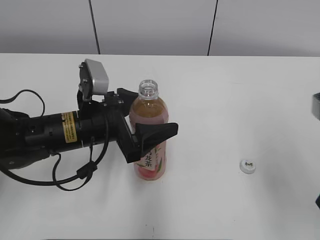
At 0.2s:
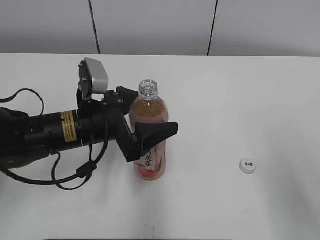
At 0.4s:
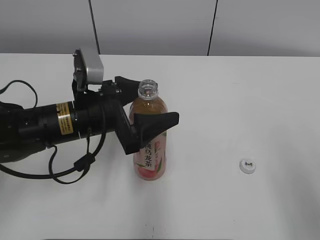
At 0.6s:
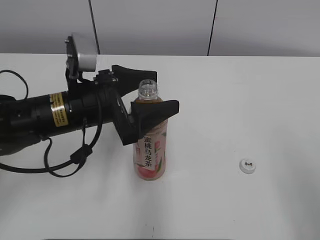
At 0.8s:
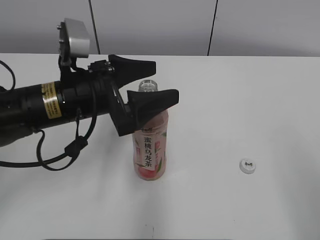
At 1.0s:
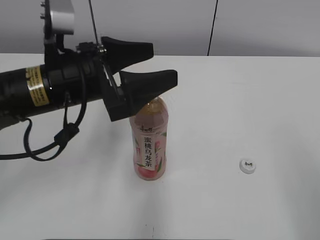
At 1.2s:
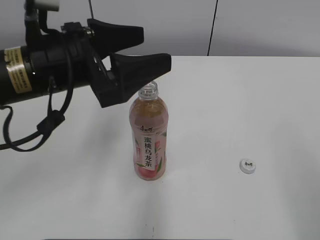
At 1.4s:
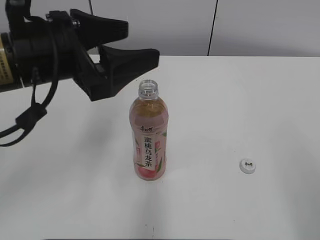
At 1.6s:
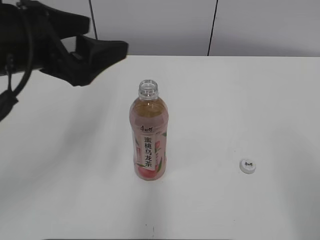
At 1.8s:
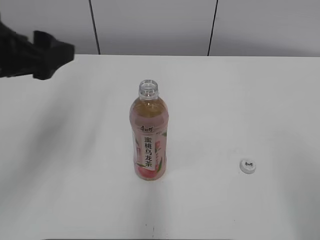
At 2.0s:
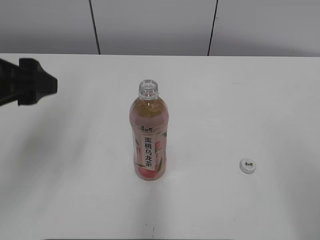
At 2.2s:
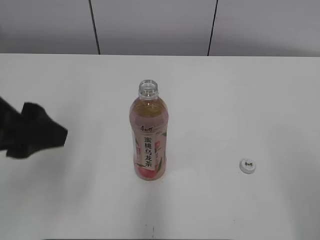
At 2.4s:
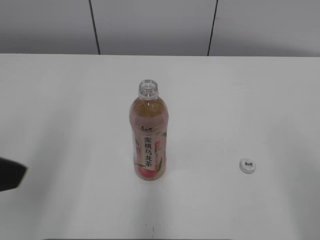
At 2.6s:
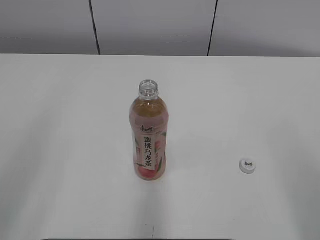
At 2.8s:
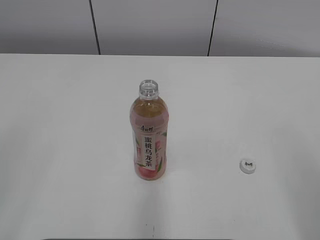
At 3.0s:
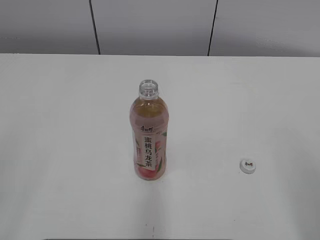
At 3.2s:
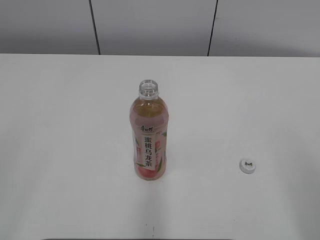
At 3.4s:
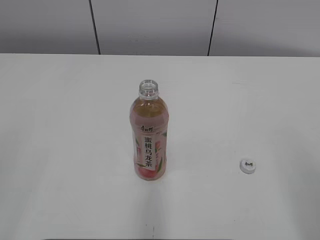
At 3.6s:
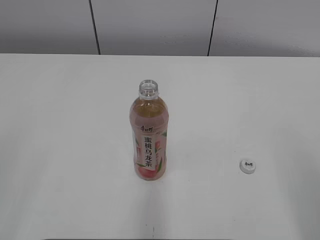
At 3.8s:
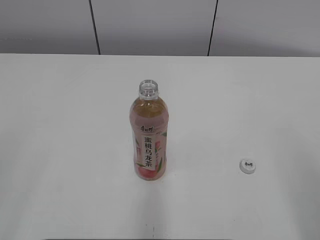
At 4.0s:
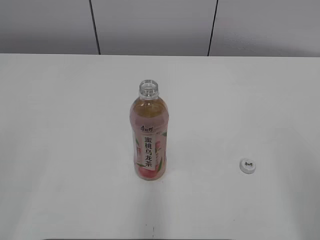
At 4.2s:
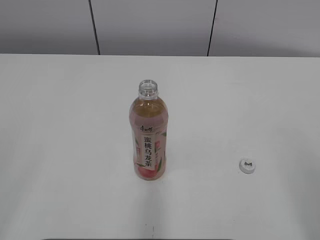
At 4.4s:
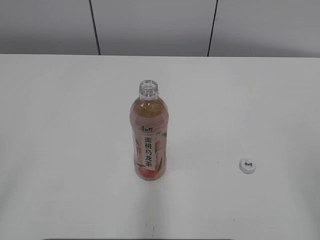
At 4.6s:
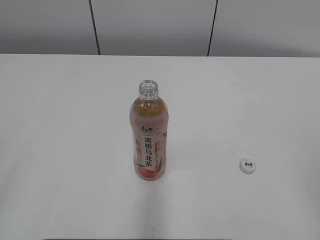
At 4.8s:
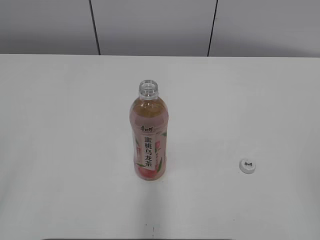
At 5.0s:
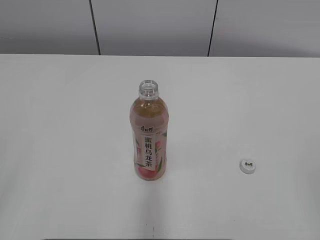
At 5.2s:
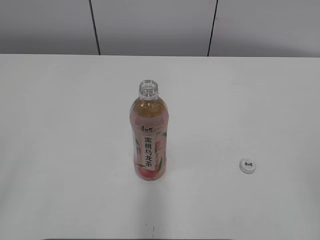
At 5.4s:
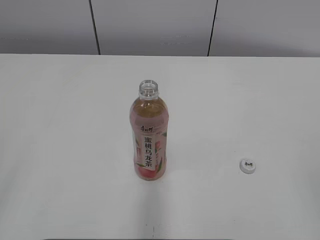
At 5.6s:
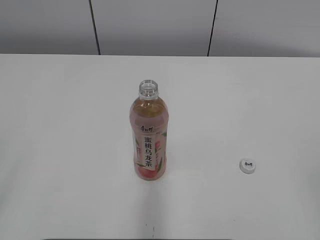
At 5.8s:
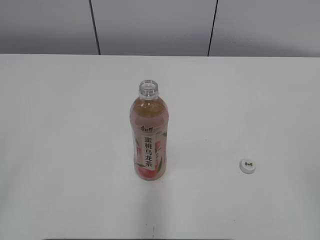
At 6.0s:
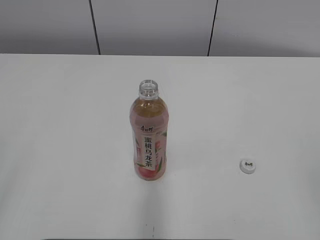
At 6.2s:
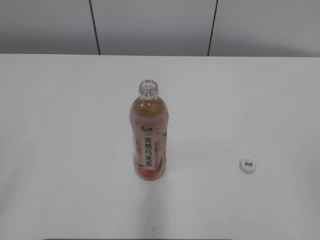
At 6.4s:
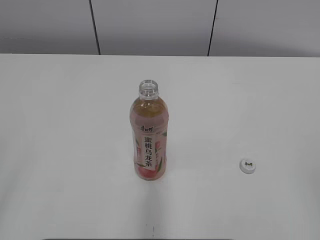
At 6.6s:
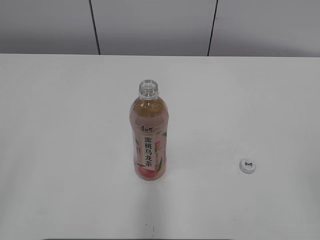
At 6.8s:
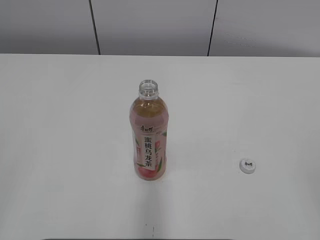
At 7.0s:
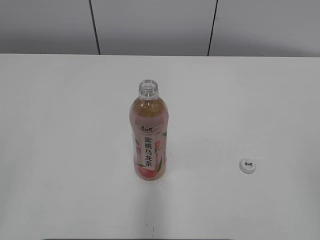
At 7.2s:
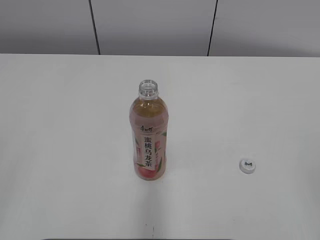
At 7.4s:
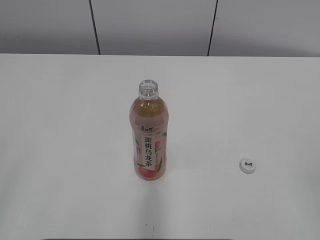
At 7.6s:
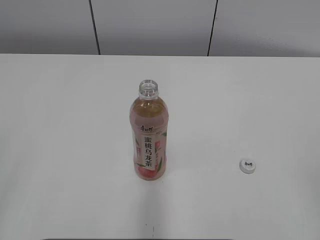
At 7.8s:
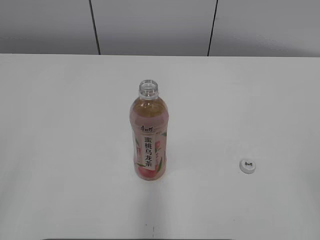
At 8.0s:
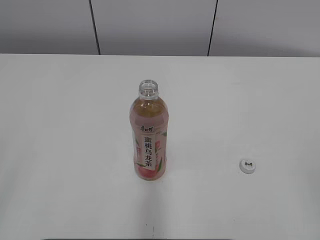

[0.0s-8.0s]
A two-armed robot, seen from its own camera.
0.0s to 1.6s: The right gripper travels backward and to the right by approximately 15 cm. The left gripper shifts approximately 15 cm upward.
1.6s to 3.2s: The left gripper heads backward and to the left, covering about 25 cm.
4.8s to 6.4s: Neither gripper changes place.

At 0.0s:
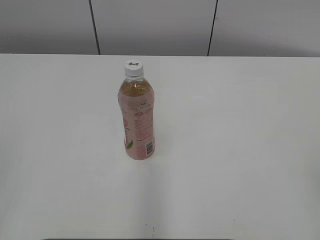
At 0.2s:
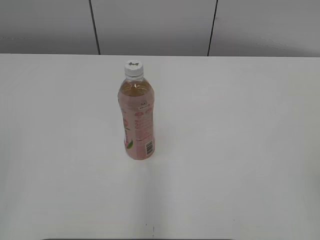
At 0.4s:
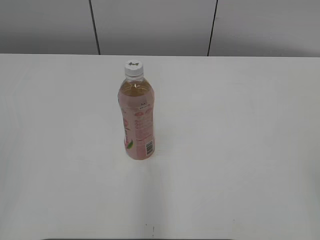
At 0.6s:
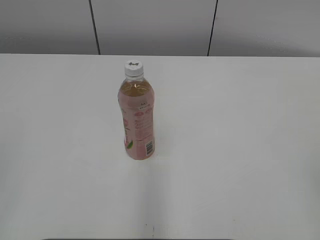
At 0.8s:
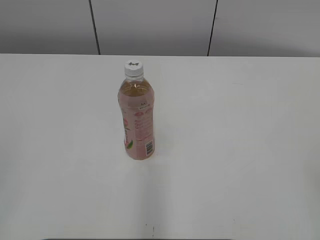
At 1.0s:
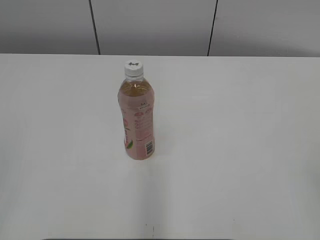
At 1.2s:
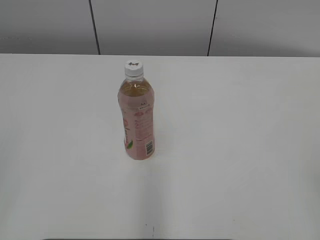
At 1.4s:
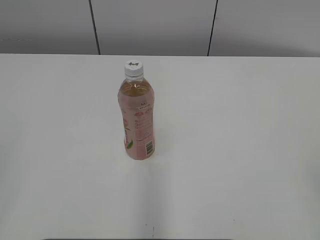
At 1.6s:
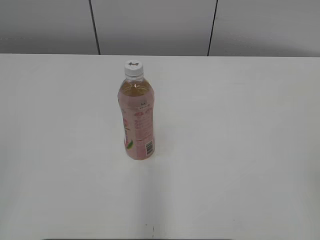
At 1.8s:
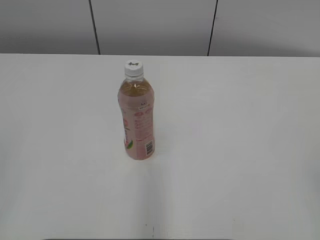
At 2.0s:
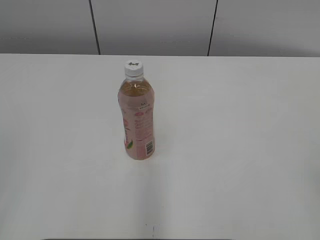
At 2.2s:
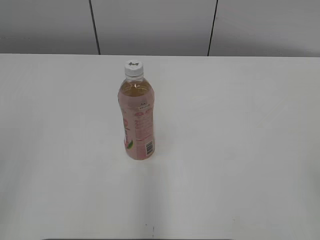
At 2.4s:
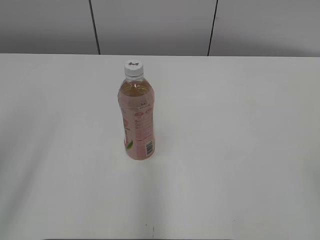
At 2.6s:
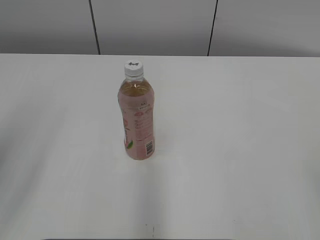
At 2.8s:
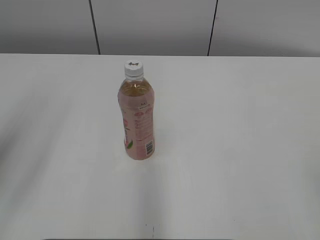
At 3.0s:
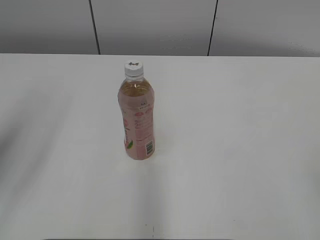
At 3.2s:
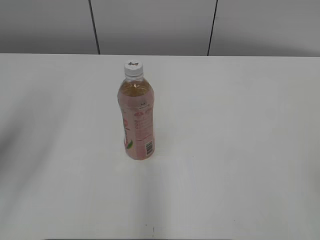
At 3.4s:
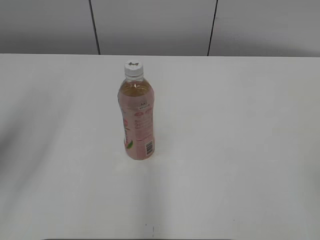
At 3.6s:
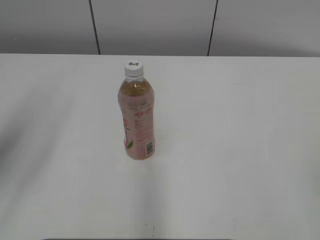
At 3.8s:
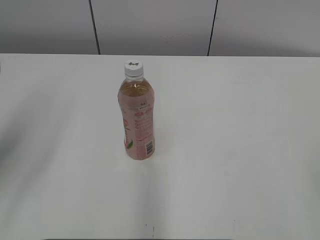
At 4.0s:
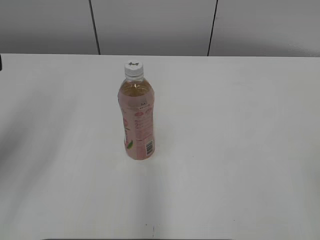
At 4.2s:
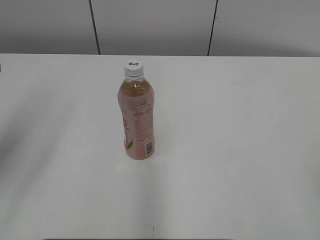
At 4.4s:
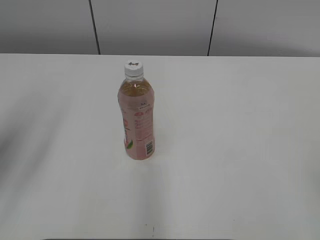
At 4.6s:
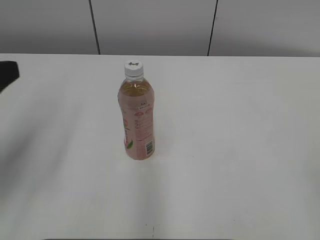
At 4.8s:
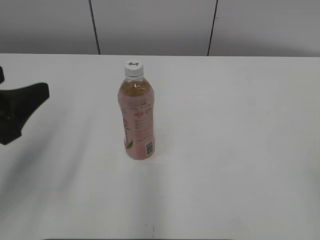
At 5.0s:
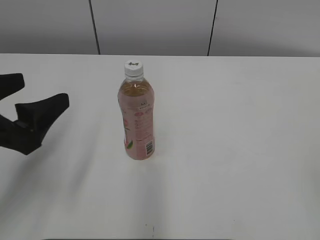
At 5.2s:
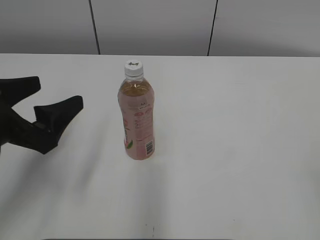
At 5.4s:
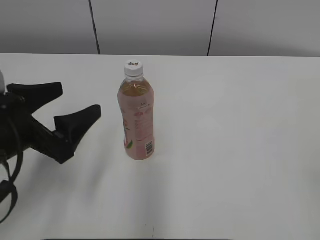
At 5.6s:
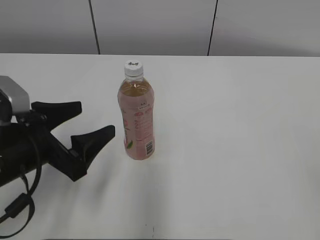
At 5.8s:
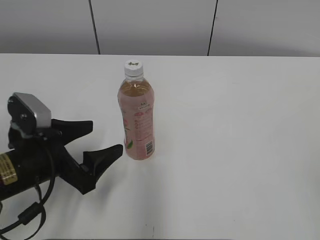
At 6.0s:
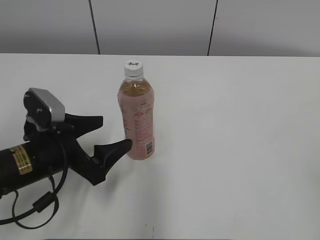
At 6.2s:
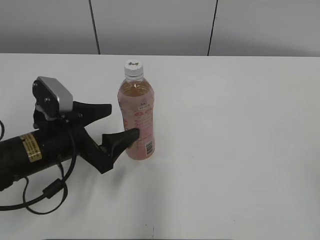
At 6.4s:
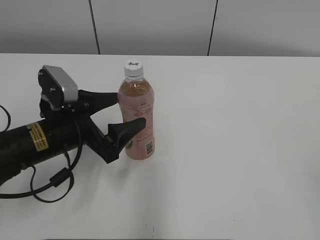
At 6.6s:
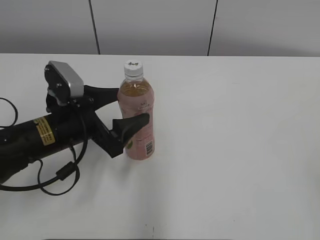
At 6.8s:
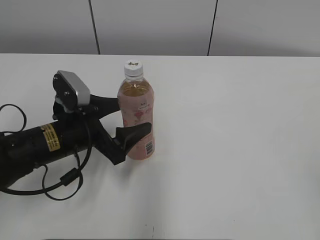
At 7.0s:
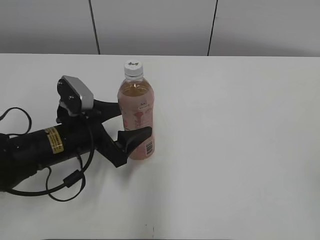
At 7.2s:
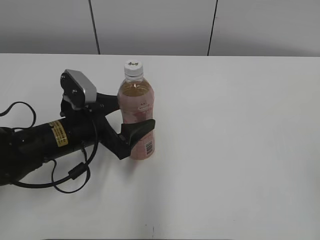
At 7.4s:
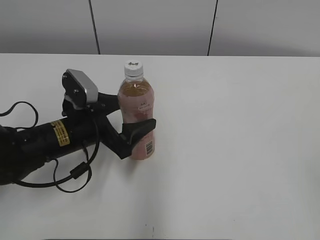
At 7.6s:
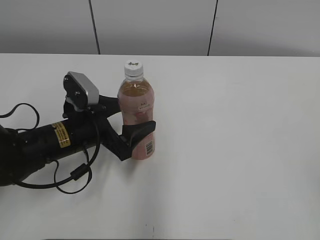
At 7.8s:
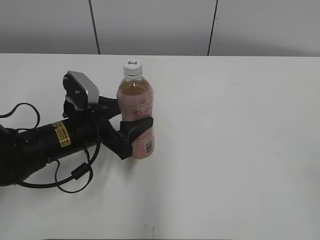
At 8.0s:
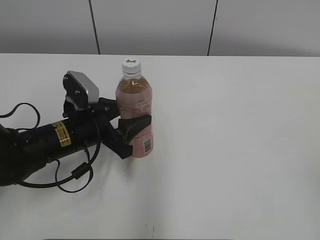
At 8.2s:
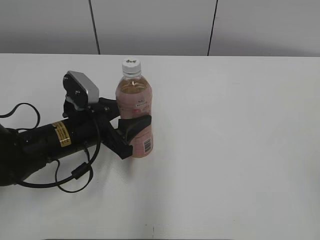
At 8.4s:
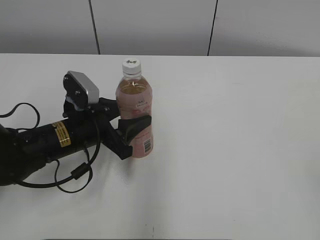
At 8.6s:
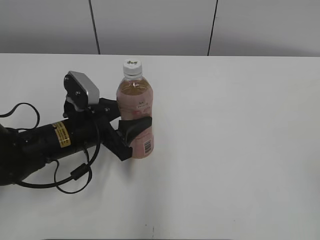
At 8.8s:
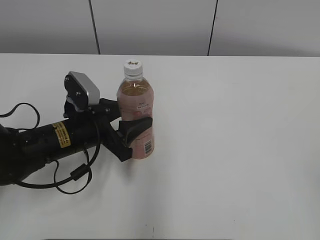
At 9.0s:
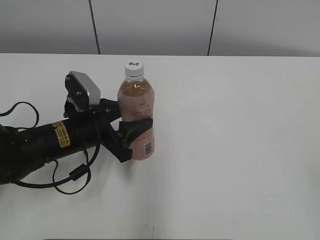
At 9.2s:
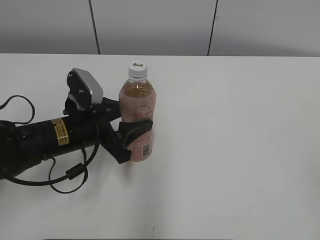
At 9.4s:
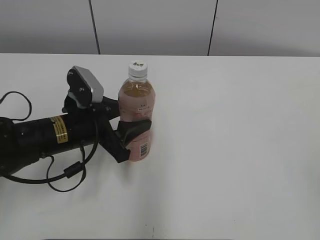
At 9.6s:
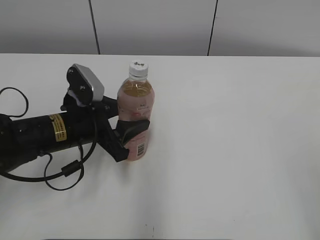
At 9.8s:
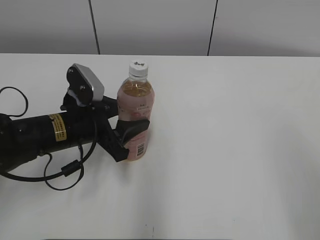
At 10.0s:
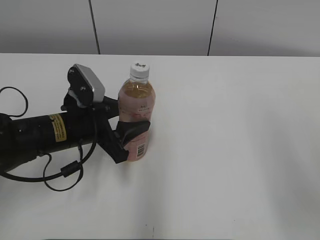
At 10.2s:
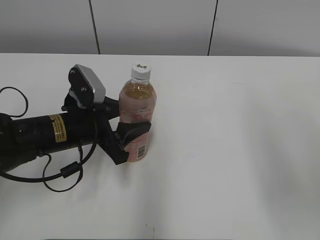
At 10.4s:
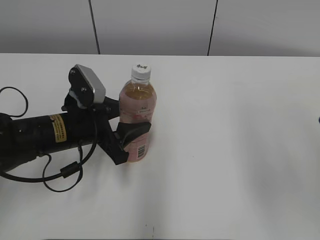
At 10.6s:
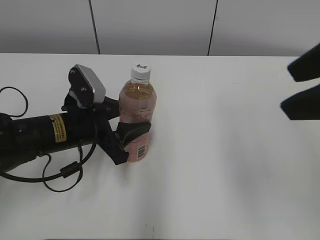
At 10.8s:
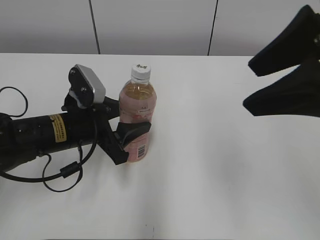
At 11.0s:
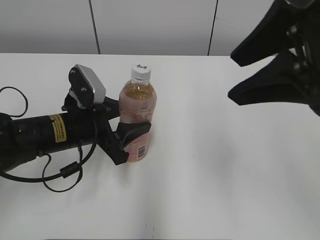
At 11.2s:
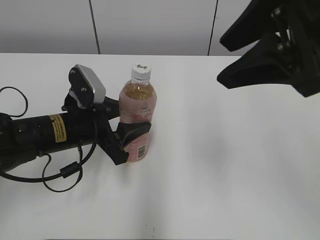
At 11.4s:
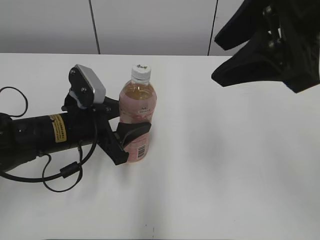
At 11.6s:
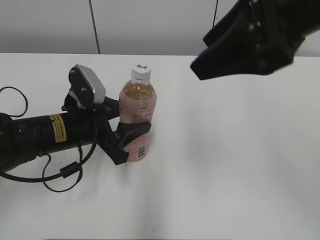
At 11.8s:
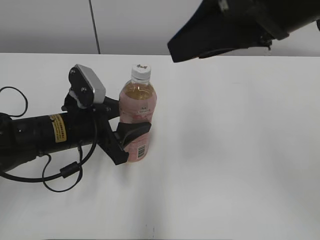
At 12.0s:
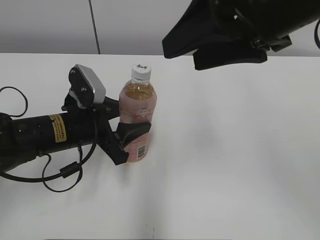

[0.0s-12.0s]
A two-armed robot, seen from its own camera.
Step, 0.0s to 8.2s: Grab the Peach Oolong Tea with the left hand.
1.6s to 3.0s: The left gripper heads forward, covering some 15 cm, and opens.
4.4s to 6.0s: The left gripper goes approximately 20 cm downward and to the right.
6.0s to 7.6s: The left gripper travels forward by some 5 cm.
7.6s to 9.0s: The left gripper closes its fingers.
9.0s to 10.4s: The right gripper heads forward, to the left and upward, covering some 20 cm.
10.4s to 12.0s: The right gripper is displaced to the left and forward by some 15 cm.

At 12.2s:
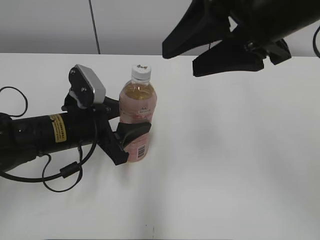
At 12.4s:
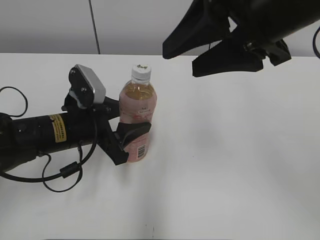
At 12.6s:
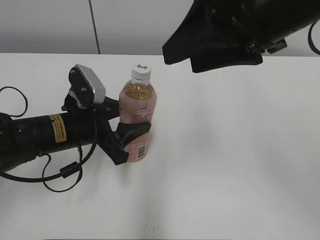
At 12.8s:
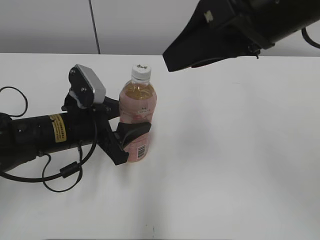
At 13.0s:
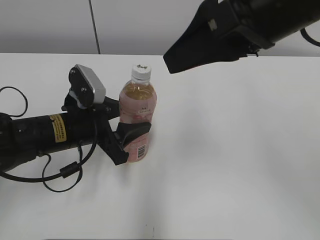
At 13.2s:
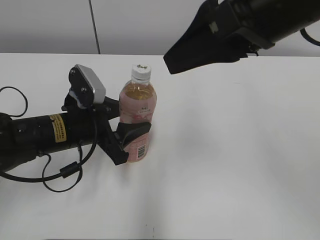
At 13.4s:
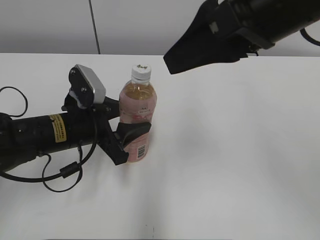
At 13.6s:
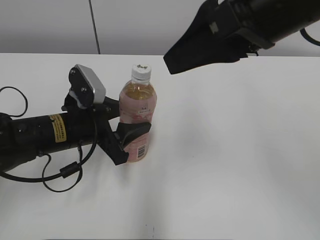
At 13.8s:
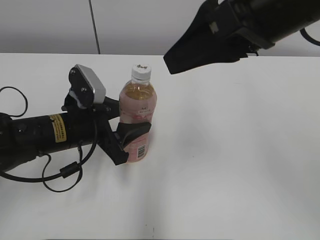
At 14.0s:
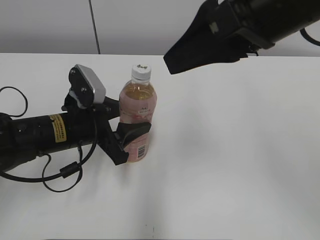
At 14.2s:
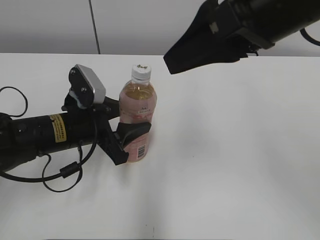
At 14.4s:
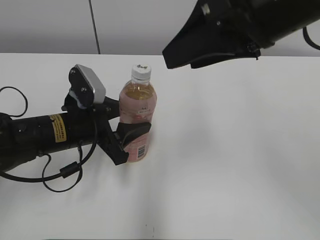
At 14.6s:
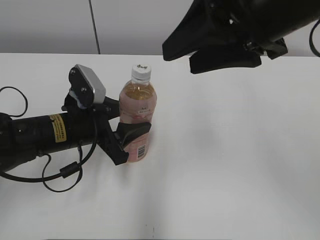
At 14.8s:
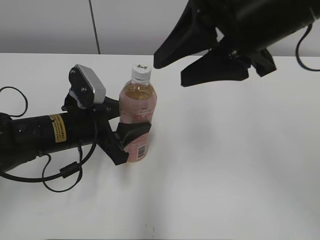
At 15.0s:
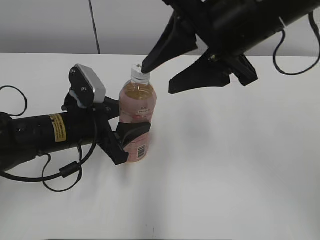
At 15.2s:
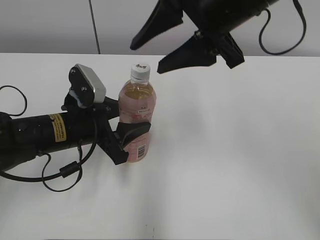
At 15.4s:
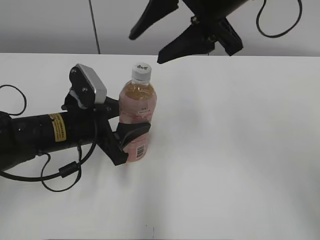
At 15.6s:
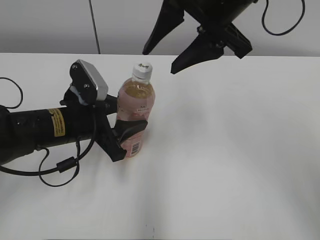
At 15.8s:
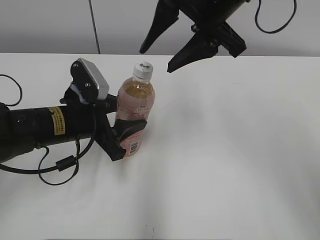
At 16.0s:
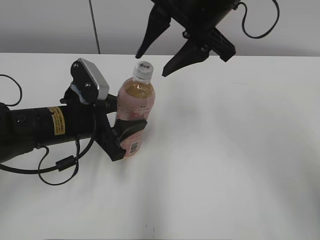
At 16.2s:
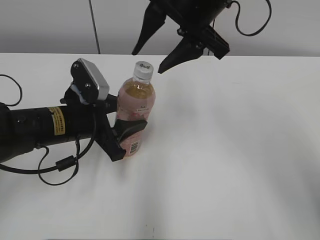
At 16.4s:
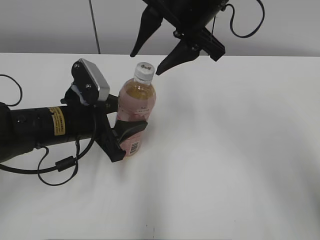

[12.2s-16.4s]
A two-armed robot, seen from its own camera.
15.0s to 16.4s: The right gripper shifts some 10 cm forward.
